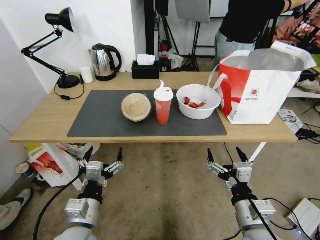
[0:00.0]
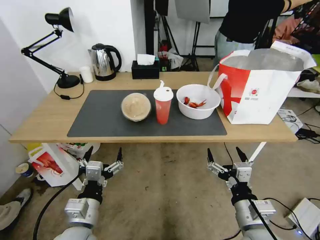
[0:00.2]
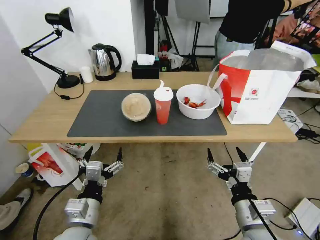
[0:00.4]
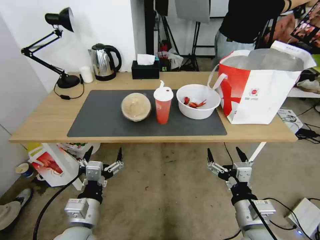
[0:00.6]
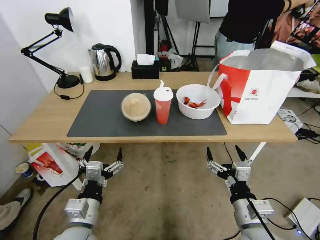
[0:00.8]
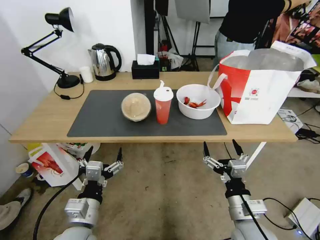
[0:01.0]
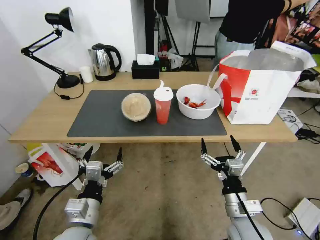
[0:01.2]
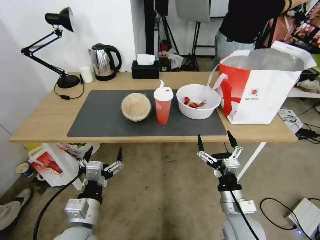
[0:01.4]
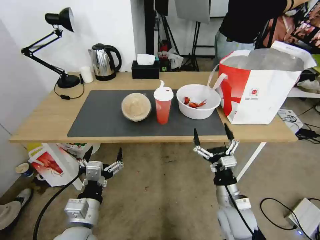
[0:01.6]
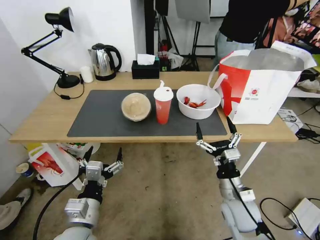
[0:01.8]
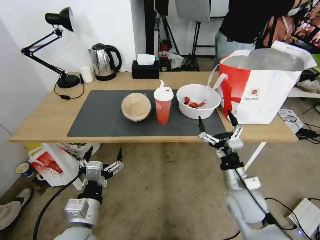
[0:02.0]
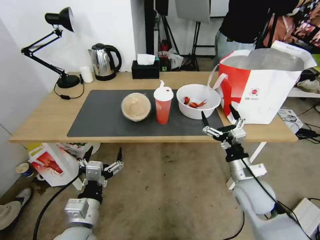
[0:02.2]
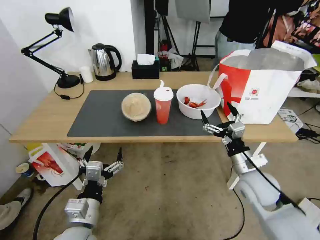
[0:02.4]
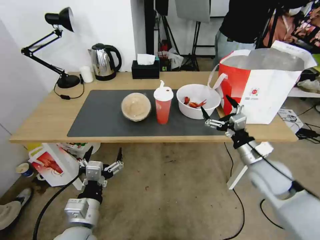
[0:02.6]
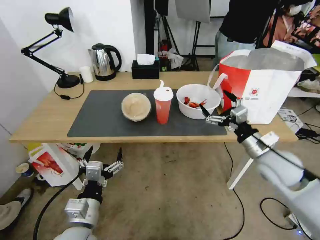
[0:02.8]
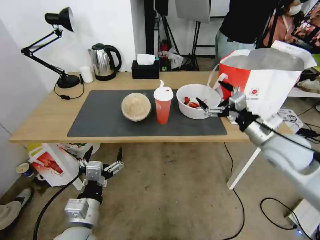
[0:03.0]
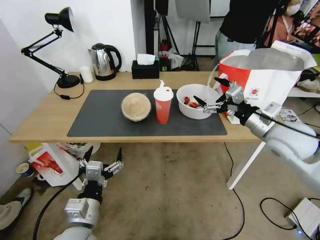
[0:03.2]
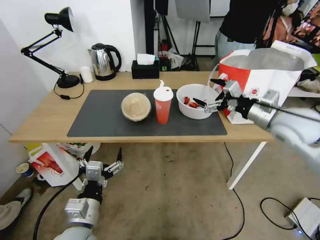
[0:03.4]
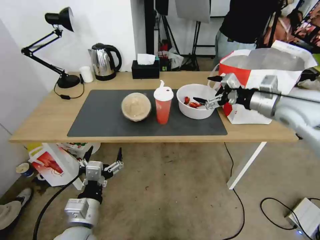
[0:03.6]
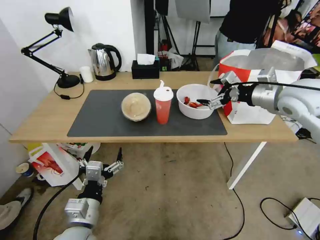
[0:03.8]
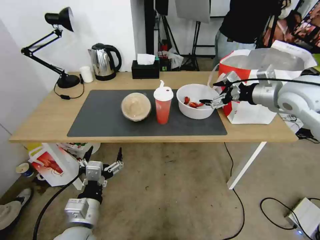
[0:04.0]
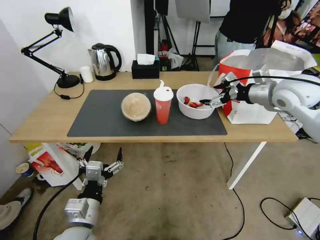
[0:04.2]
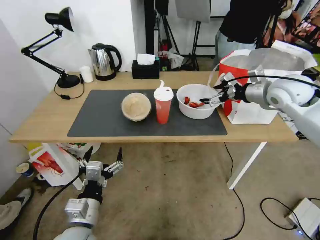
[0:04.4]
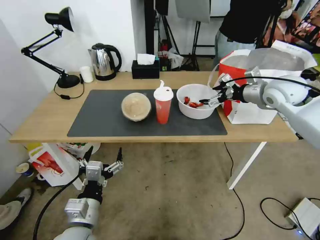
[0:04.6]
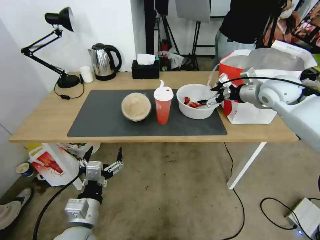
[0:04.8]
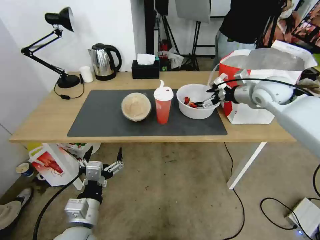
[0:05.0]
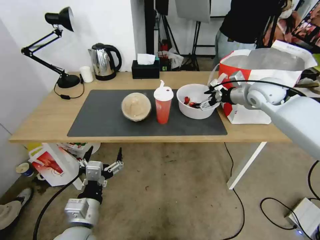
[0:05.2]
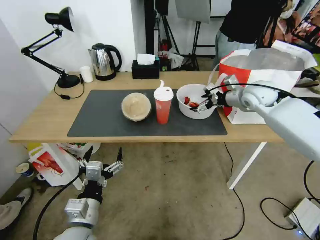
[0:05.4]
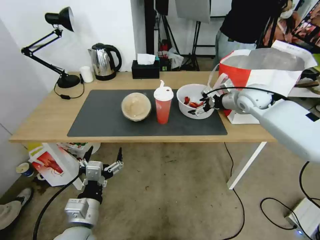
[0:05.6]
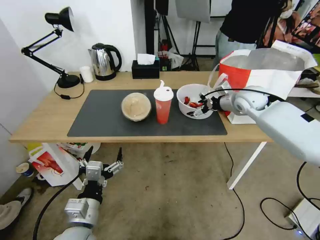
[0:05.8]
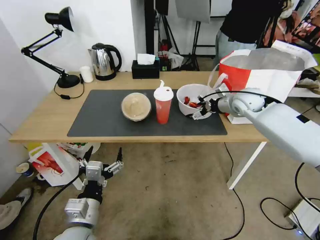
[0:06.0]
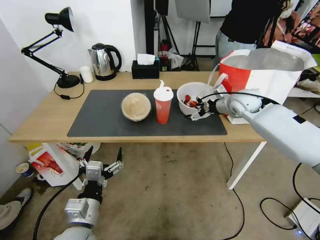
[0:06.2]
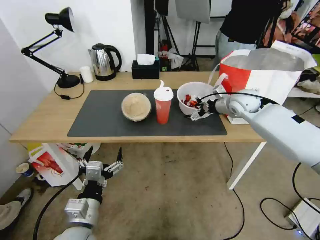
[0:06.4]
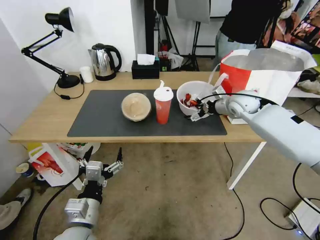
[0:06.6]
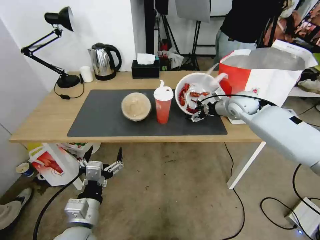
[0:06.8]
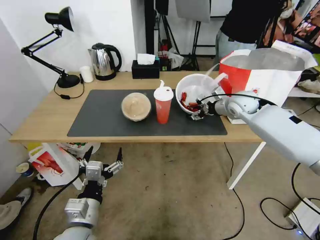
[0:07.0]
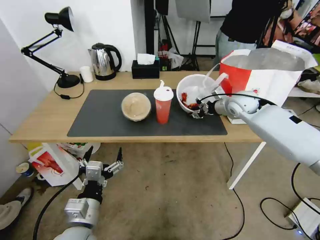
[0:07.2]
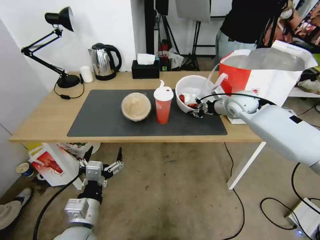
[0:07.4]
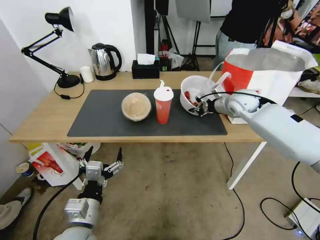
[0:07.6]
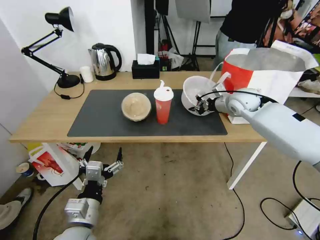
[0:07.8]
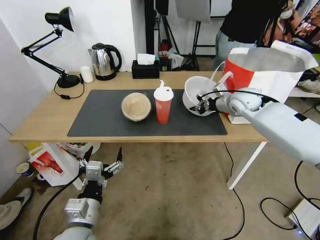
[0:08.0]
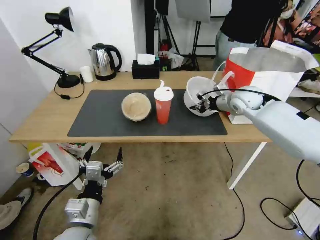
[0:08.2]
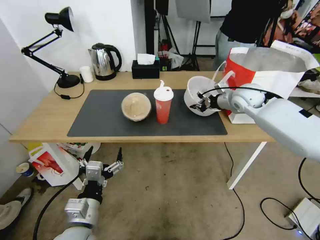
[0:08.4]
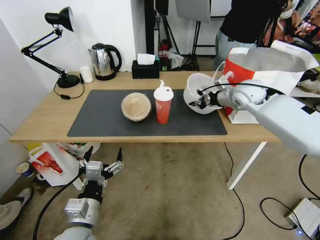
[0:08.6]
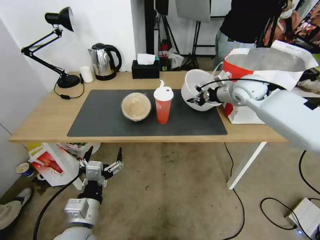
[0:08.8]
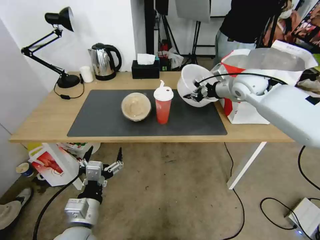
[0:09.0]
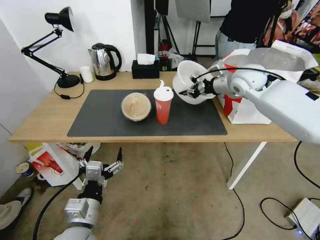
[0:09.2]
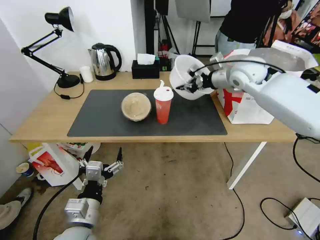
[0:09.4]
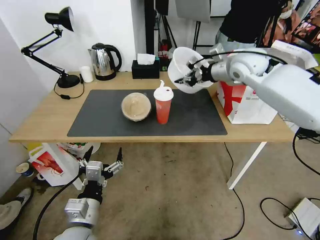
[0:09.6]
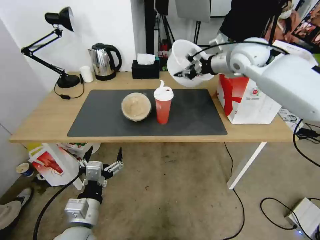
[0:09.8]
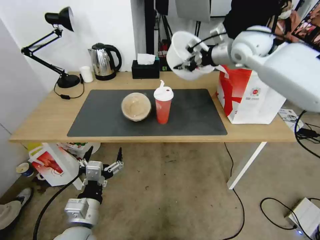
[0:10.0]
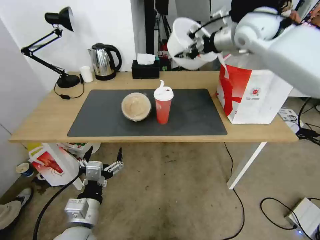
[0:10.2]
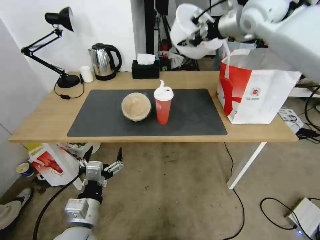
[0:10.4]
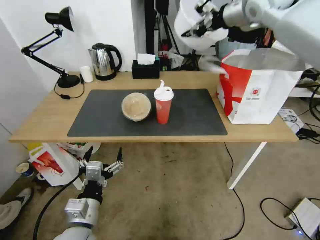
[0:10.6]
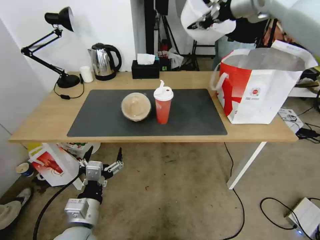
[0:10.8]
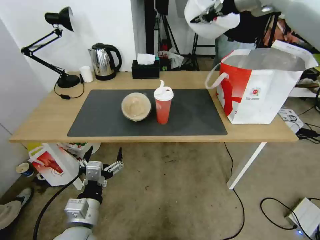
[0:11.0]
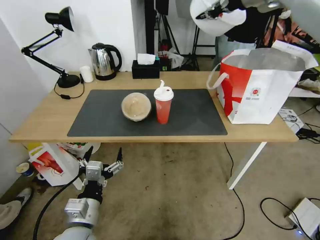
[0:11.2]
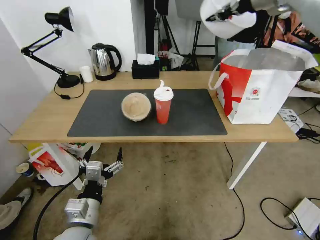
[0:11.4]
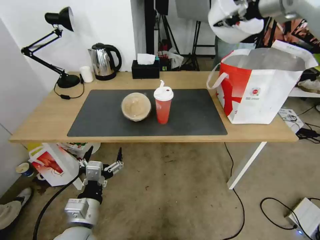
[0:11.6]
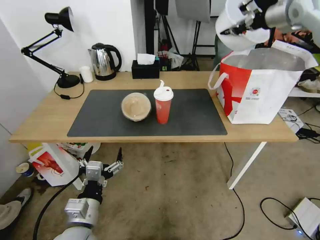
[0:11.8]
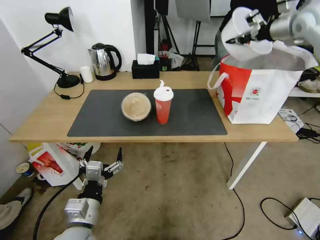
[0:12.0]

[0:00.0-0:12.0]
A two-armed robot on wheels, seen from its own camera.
Task of the whole recording: Pick up the trash from the table and place it into the takeout bag.
0:01.6 to 0:03.0: The right gripper goes roughly 25 cm upward, forward and to the right.
0:03.0 to 0:04.4: The right gripper shifts approximately 20 cm forward and upward.
0:04.4 to 0:06.0: The right gripper is displaced downward and forward by some 10 cm.
0:06.0 to 0:07.6: The right gripper closes its fingers.
0:07.6 to 0:09.0: The right gripper is displaced upward by some 10 cm.
0:09.0 to 0:10.4: The right gripper moves upward, some 15 cm.
0:10.4 to 0:12.0: The right gripper shifts some 15 cm to the right.

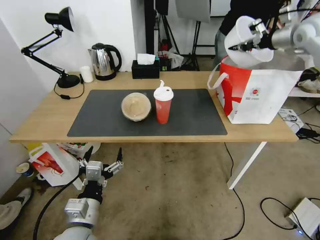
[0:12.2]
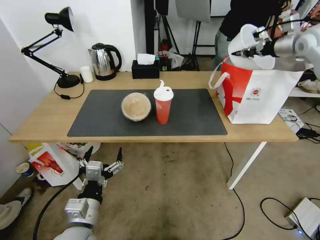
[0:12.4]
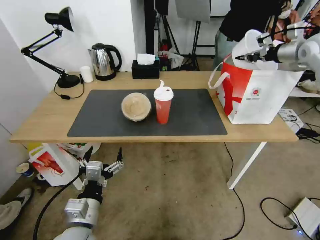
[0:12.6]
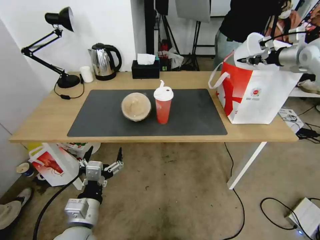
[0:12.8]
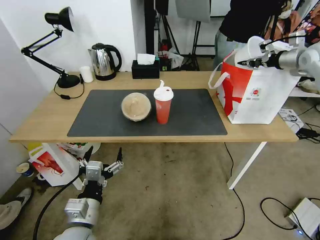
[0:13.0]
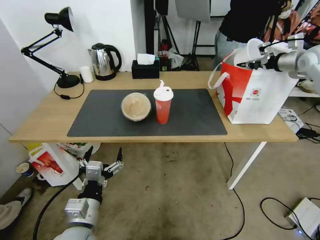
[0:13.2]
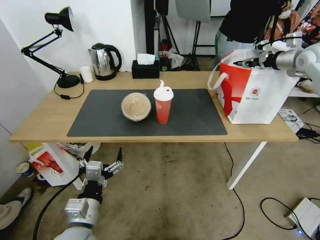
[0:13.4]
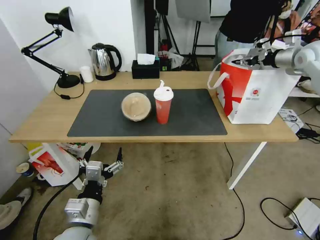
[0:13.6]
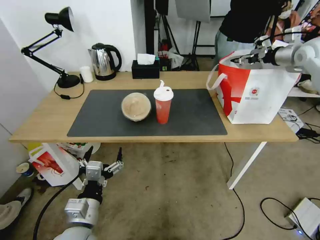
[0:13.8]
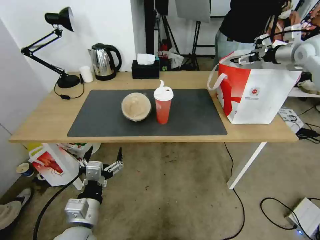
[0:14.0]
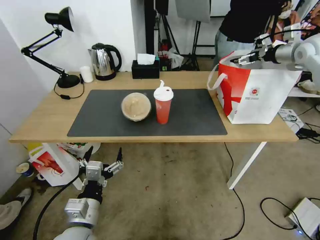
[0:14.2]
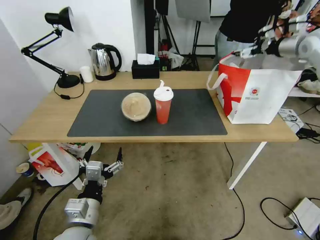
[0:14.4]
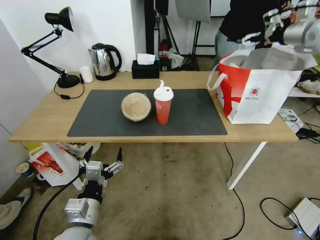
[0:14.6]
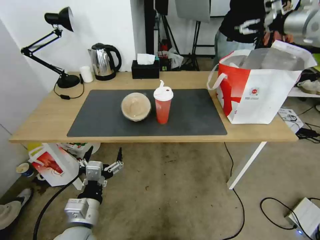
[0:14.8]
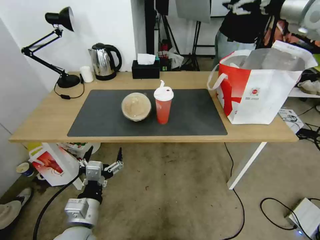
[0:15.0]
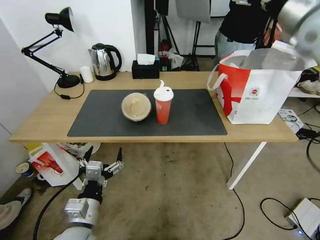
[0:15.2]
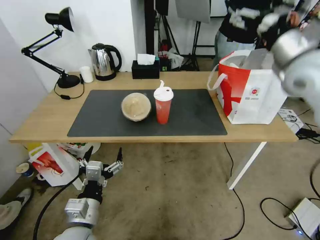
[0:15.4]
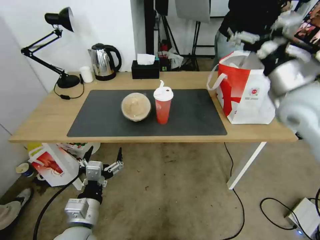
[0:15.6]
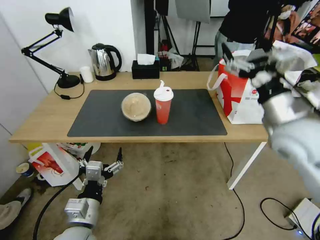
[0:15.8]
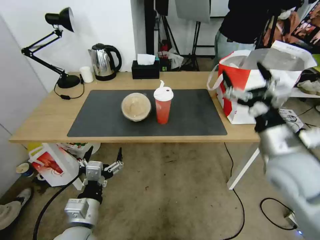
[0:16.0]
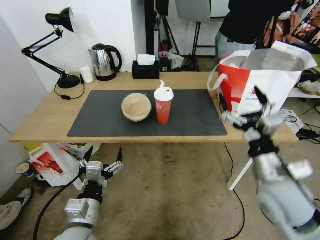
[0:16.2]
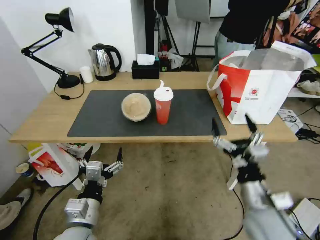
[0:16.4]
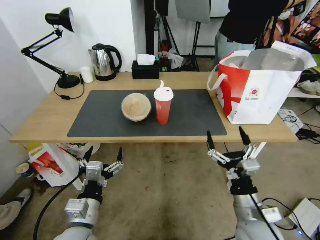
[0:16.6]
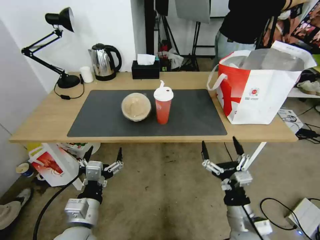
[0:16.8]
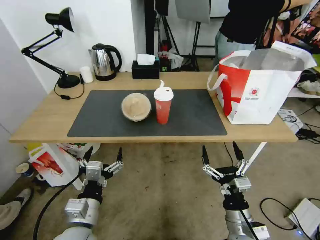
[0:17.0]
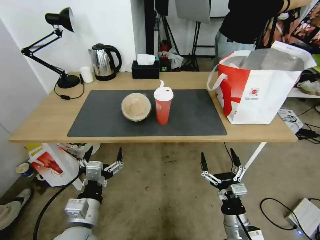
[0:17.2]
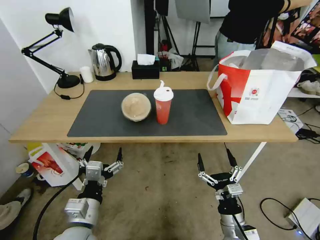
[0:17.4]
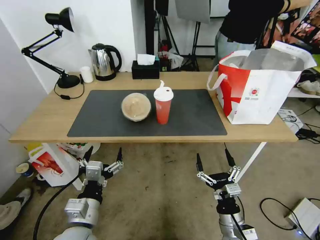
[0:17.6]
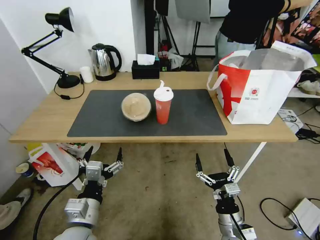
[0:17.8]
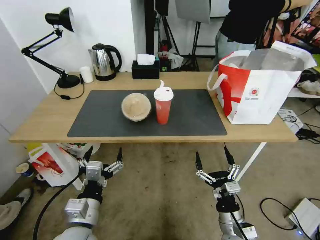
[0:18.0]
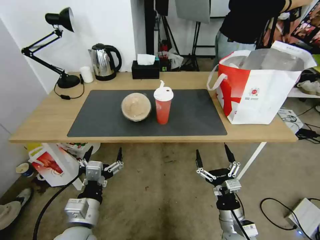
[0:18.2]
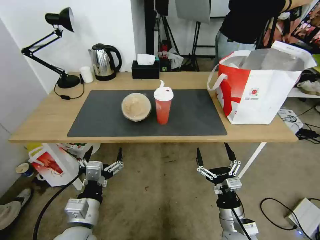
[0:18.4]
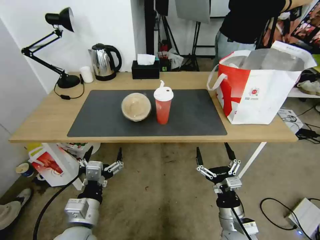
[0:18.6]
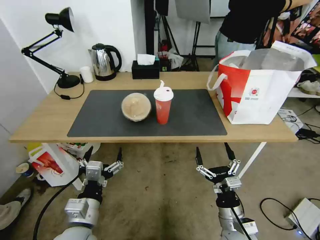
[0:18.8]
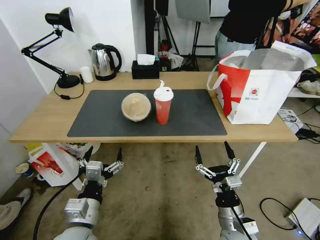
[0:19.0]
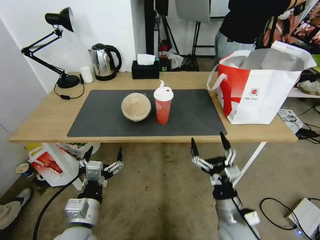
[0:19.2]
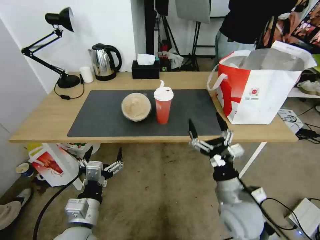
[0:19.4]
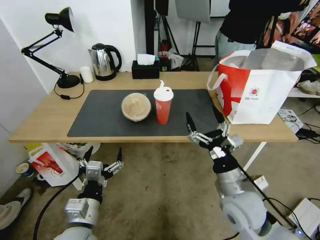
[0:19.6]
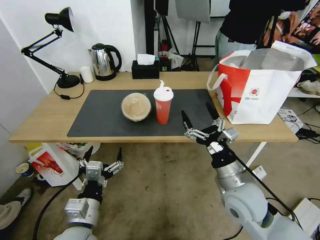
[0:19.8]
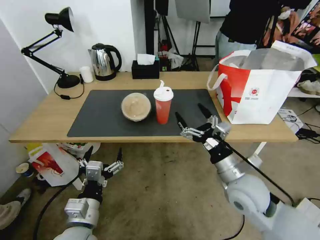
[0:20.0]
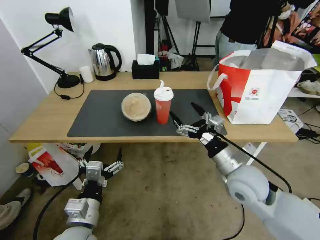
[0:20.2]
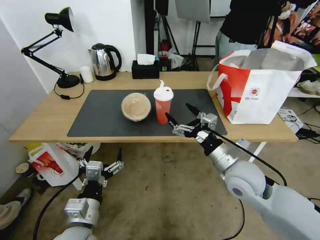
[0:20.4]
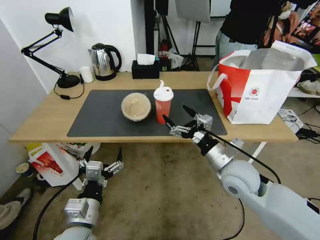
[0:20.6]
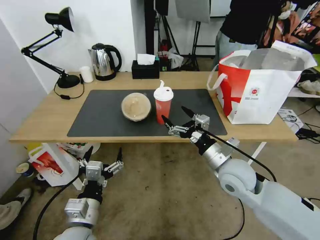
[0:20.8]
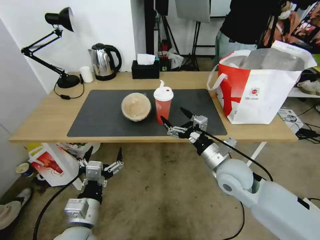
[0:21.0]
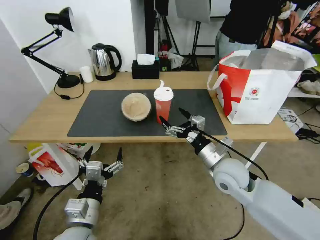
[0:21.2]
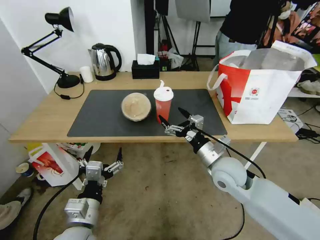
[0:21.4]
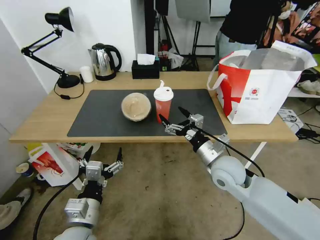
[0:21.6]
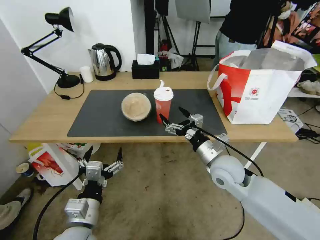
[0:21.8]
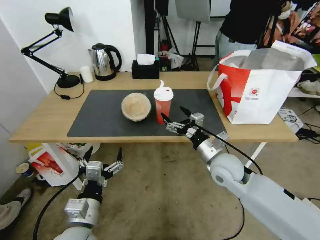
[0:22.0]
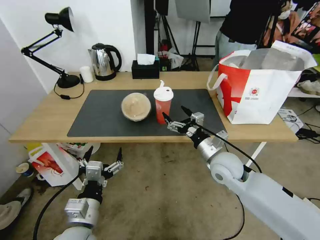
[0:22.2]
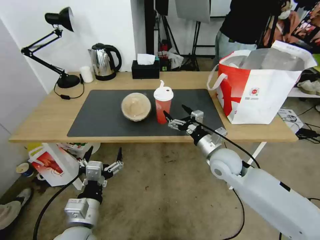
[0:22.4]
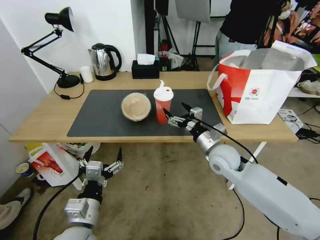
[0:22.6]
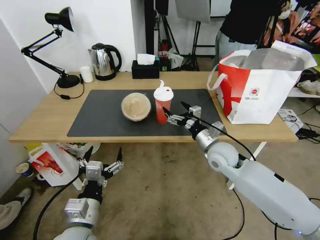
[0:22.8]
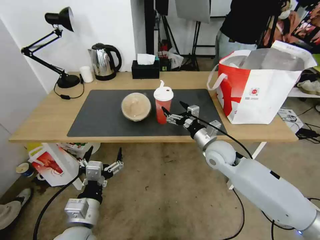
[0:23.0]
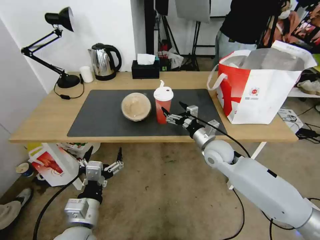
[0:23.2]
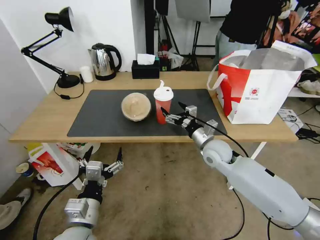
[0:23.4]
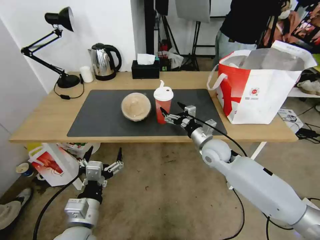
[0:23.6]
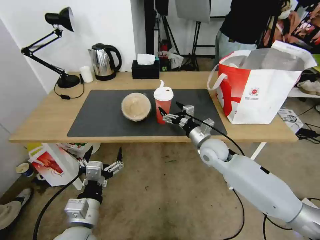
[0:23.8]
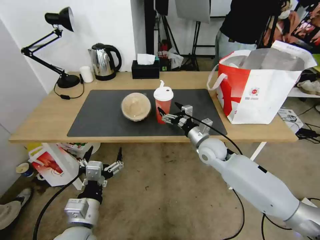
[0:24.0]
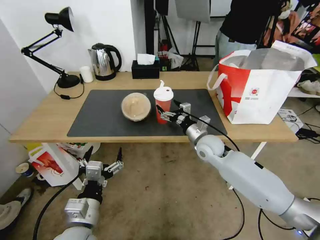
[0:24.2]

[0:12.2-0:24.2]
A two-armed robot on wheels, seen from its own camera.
Task of the whole recording: Pick up the trash from the table and place it into the takeout bag.
0:12.2 to 0:13.8: The right gripper is displaced downward by some 5 cm, and opens.
0:13.8 to 0:15.2: The right gripper travels to the left, backward and upward by approximately 20 cm, and opens its fingers.
0:15.2 to 0:16.6: The right gripper travels downward and backward by about 50 cm.
0:16.6 to 0:18.2: The right gripper shifts approximately 10 cm downward.
0:18.2 to 0:19.8: The right gripper heads upward and forward, covering about 15 cm.
0:19.8 to 0:21.2: The right gripper shifts roughly 5 cm forward.
0:21.2 to 0:22.6: The right gripper shifts about 5 cm forward.
0:22.6 to 0:24.2: The right gripper goes approximately 5 cm forward.
